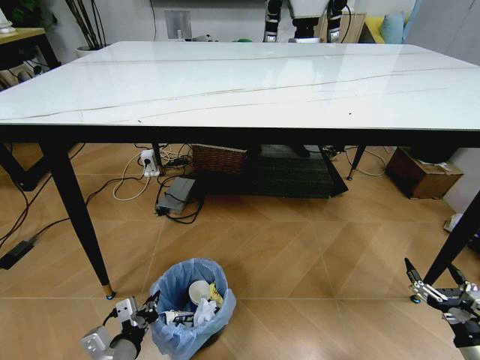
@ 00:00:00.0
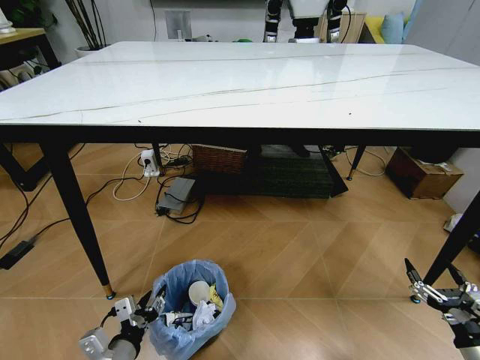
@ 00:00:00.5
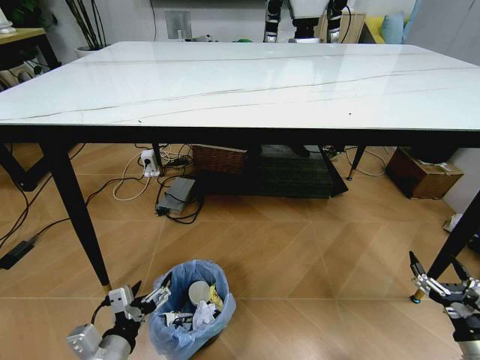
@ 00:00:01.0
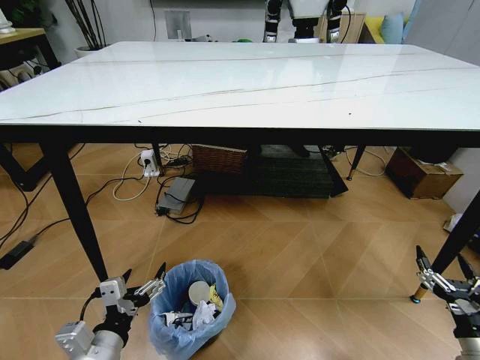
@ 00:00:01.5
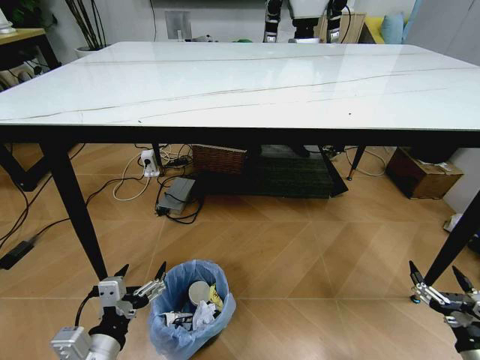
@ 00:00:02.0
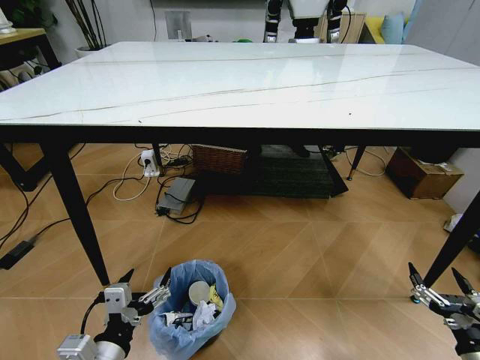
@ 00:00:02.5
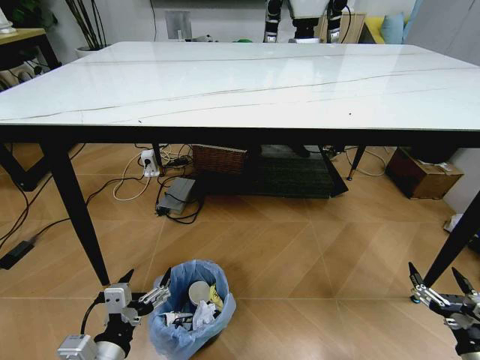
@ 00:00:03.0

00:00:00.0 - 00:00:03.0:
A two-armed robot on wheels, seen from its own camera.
Task of the whole recording: Pick up the trash bin and place the trash from the table into it.
00:00:00.0 - 00:00:01.5: The left gripper moves upward, approximately 10 cm, and opens its fingers.
00:00:01.5 - 00:00:03.0: The grippers move only a little.
